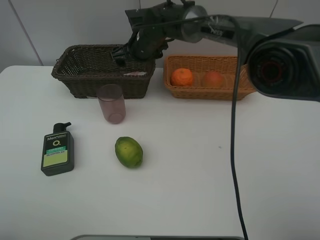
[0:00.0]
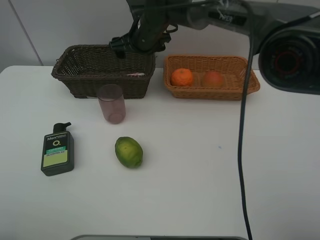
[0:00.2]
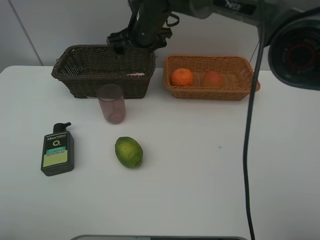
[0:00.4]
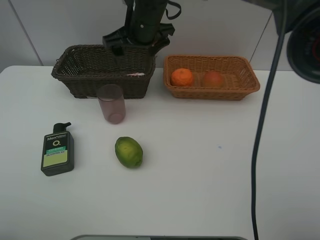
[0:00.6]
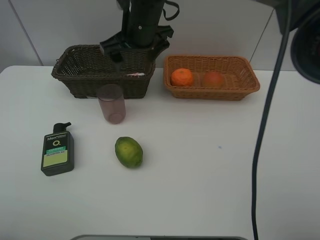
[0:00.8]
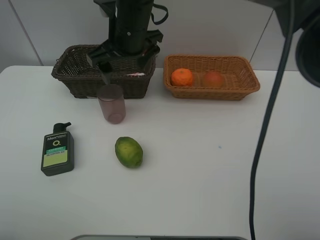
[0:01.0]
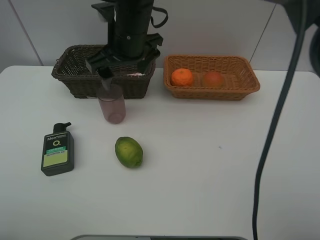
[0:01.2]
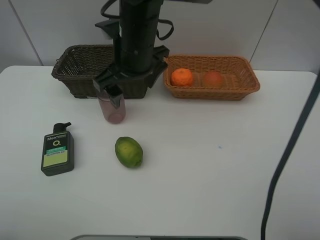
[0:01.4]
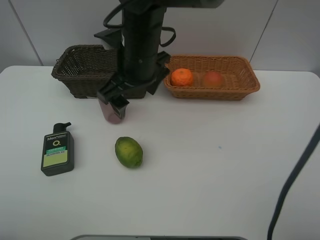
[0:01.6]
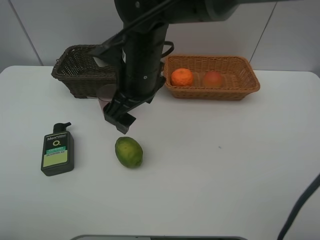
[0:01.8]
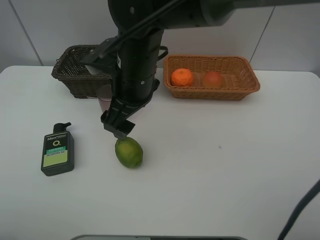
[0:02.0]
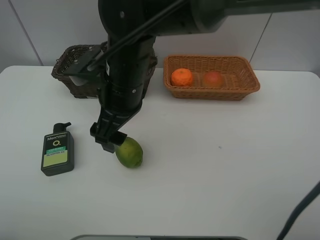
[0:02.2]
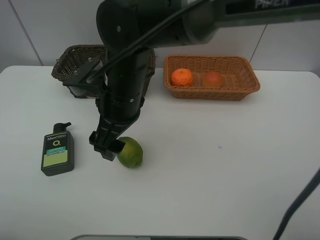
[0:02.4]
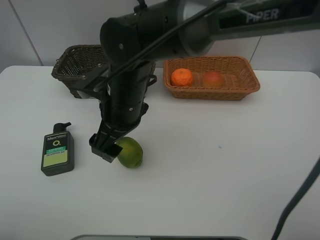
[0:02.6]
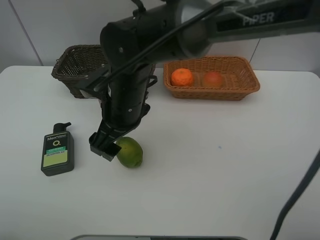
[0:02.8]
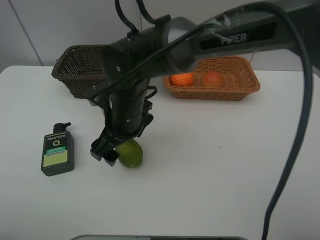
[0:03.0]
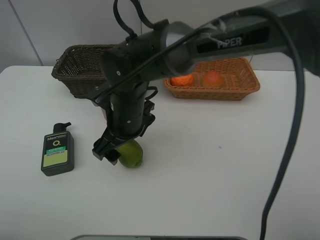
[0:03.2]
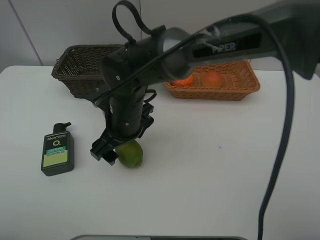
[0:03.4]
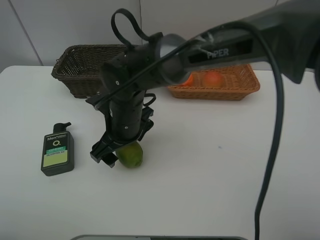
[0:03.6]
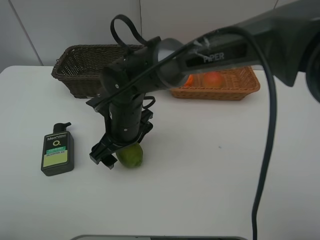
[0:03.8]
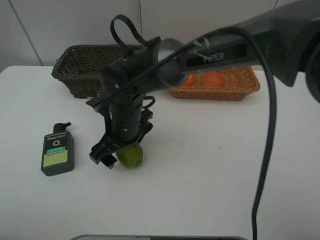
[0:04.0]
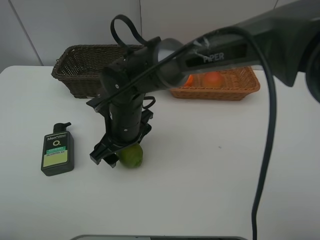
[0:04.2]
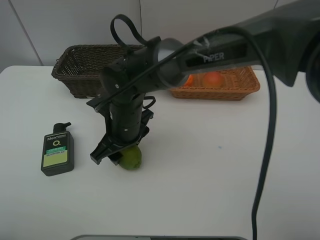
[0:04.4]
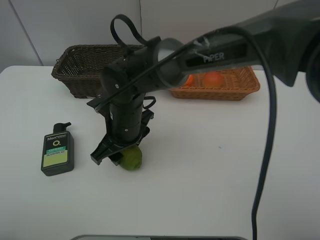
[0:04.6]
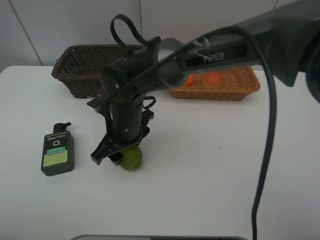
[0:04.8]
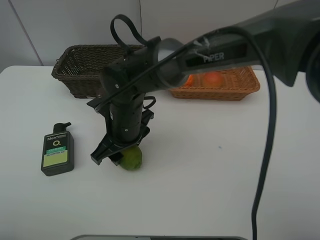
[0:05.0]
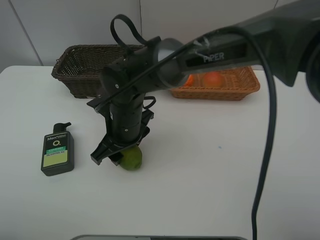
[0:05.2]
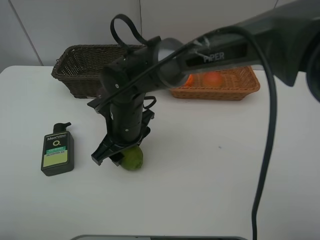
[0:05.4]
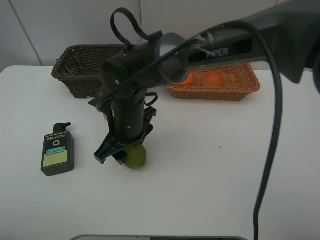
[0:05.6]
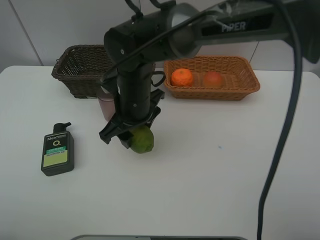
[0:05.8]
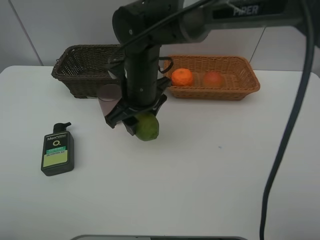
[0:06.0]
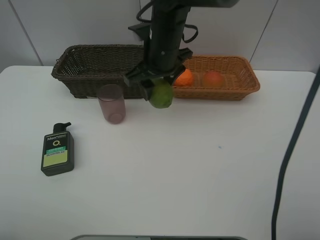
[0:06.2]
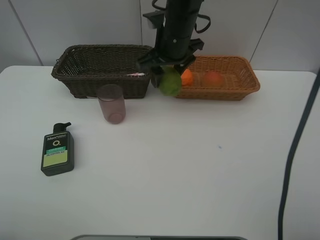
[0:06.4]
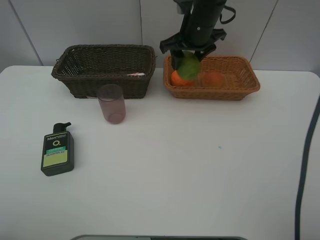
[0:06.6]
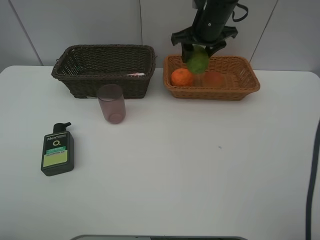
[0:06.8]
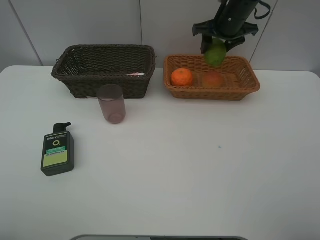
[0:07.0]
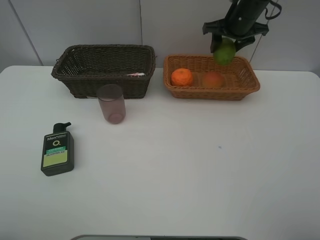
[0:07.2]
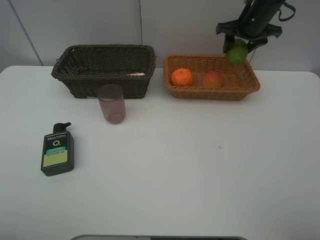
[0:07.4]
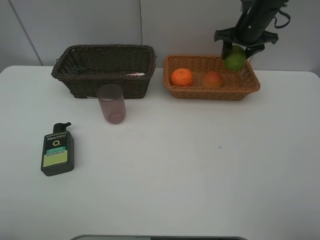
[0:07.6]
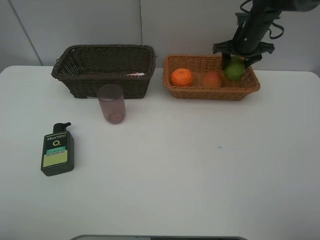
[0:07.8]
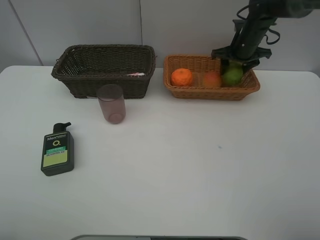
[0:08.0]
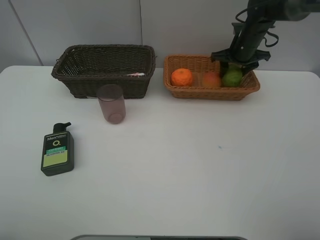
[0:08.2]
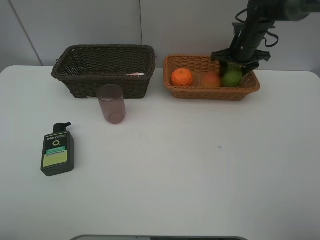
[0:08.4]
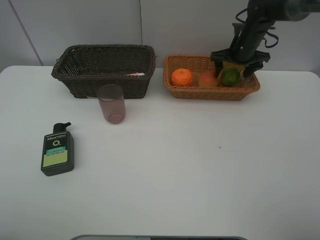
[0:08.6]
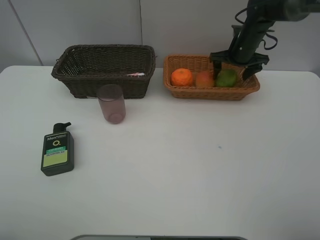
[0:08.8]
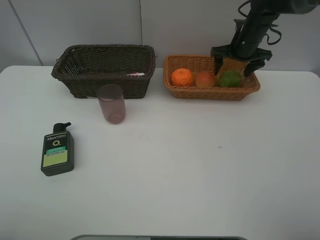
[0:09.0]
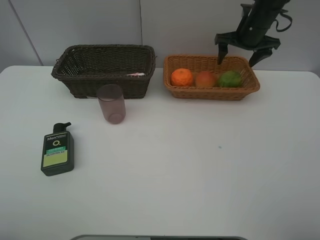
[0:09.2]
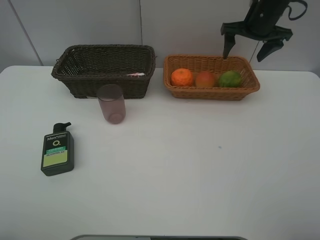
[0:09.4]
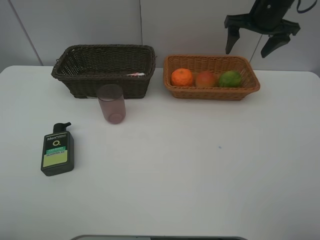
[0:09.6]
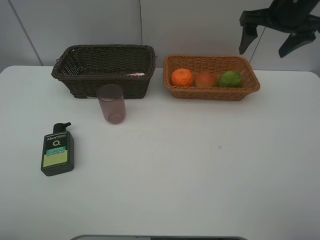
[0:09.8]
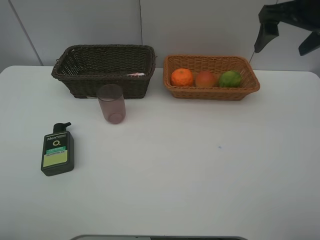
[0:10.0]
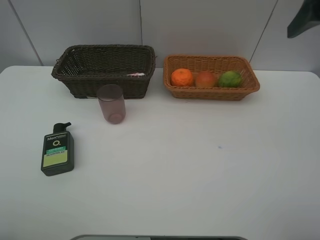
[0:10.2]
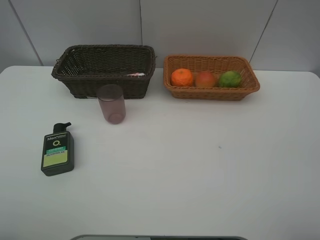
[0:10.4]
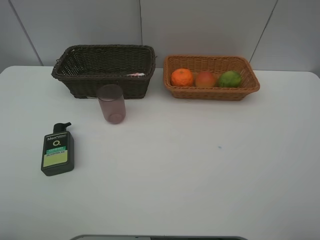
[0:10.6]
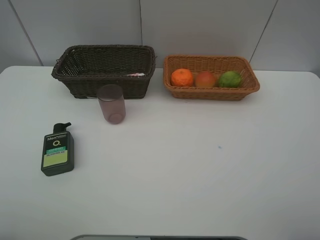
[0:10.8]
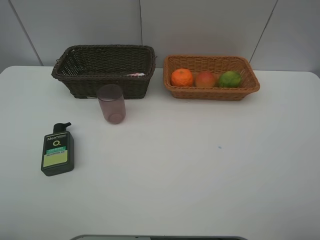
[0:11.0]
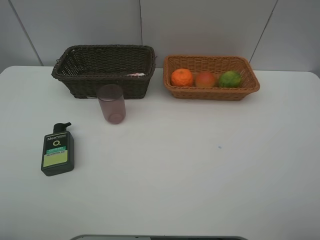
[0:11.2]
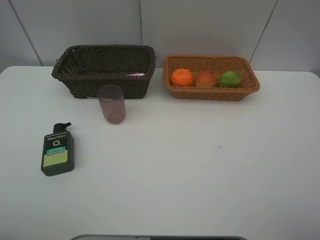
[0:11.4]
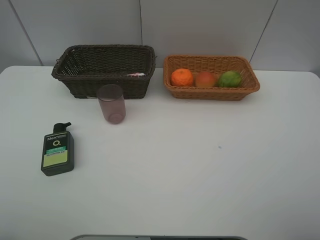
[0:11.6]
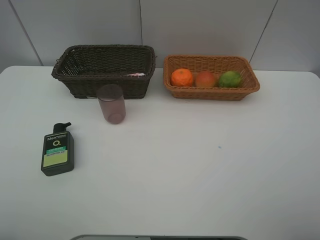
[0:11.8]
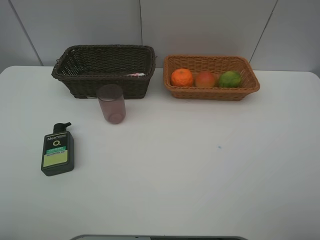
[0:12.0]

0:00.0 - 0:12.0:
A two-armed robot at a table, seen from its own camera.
Task of the whole recording: place multiple objects separately in different baskets.
0:00.0 - 0:01.6: The right gripper shifts approximately 15 cm backward.
0:01.6 - 0:03.0: The right gripper is displaced downward by about 10 cm.
0:03.0 - 0:04.4: The right gripper closes up.
0:04.4 - 0:06.0: The right gripper heads upward, covering about 5 cm.
0:06.0 - 0:07.6: The right gripper is displaced to the right and forward by roughly 30 cm.
0:07.6 - 0:09.0: The right gripper opens its fingers.
0:09.0 - 0:10.4: The right gripper travels backward and upward by some 35 cm.

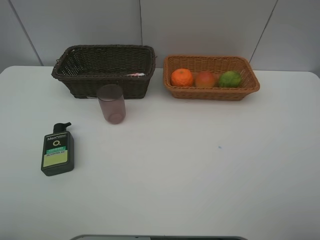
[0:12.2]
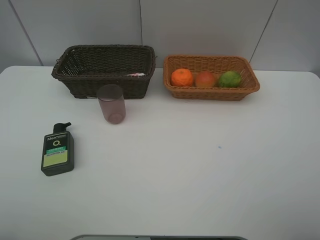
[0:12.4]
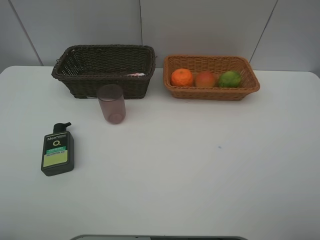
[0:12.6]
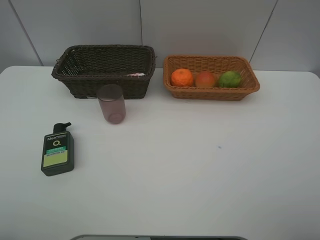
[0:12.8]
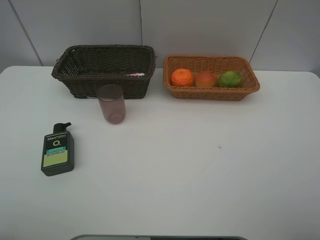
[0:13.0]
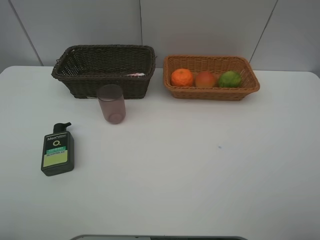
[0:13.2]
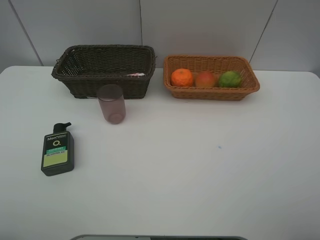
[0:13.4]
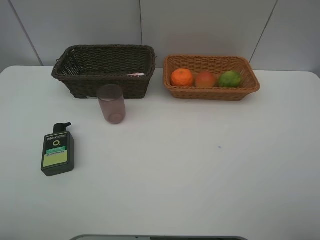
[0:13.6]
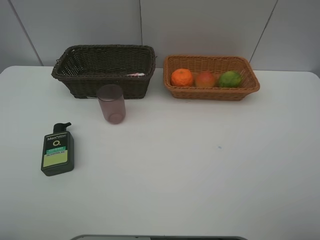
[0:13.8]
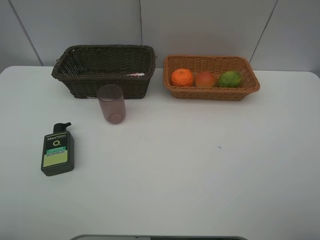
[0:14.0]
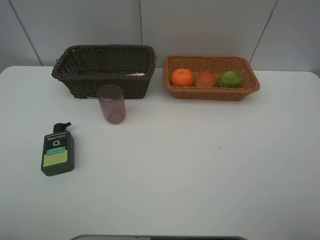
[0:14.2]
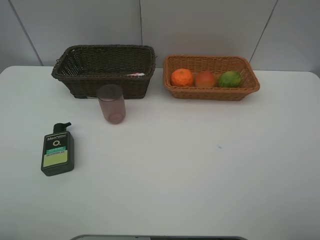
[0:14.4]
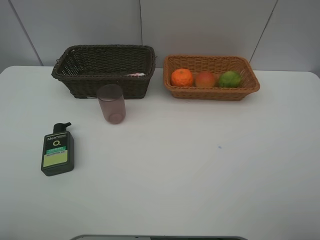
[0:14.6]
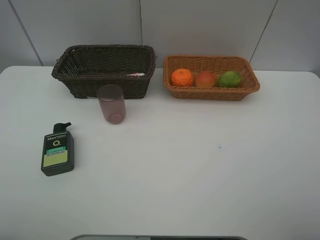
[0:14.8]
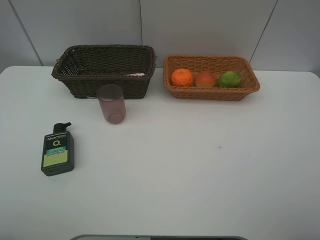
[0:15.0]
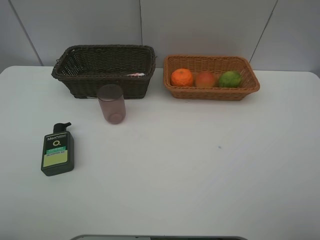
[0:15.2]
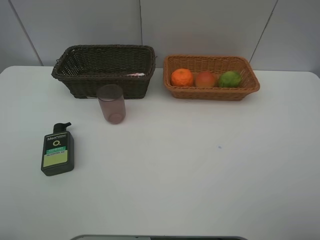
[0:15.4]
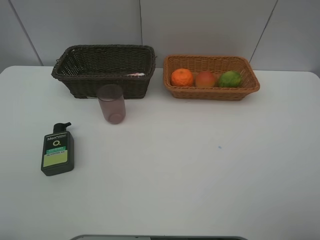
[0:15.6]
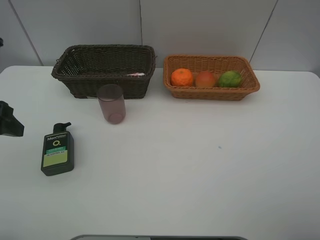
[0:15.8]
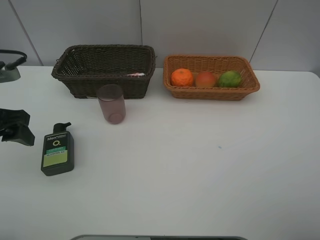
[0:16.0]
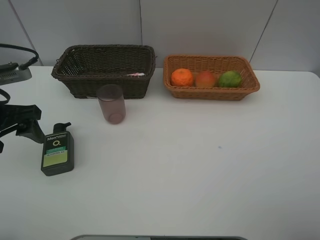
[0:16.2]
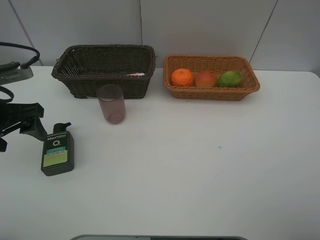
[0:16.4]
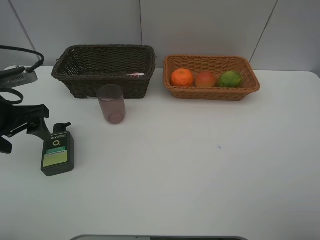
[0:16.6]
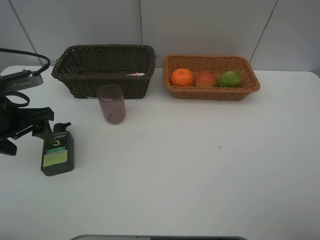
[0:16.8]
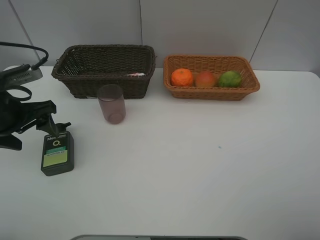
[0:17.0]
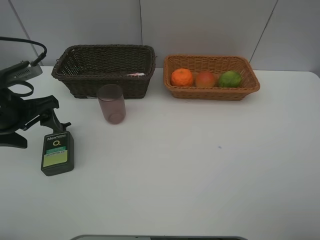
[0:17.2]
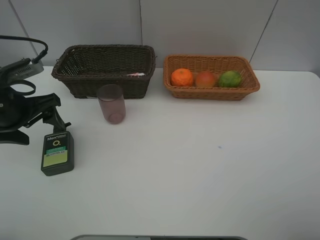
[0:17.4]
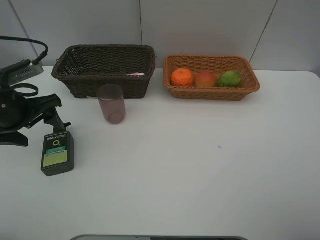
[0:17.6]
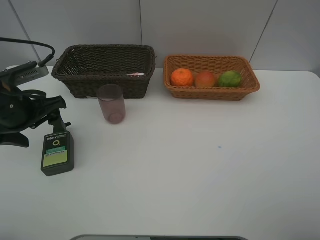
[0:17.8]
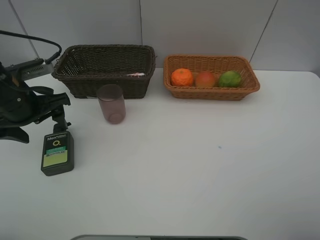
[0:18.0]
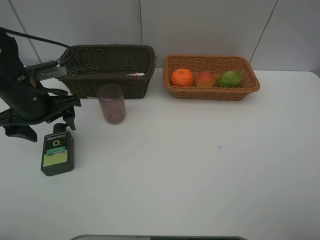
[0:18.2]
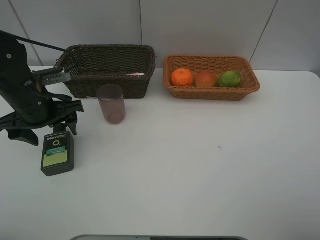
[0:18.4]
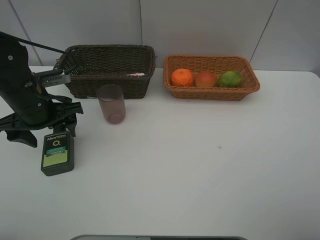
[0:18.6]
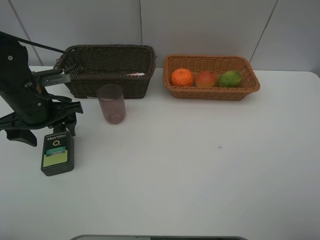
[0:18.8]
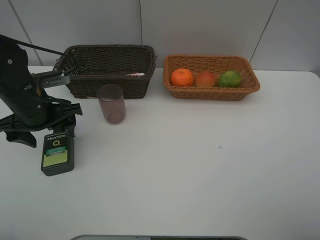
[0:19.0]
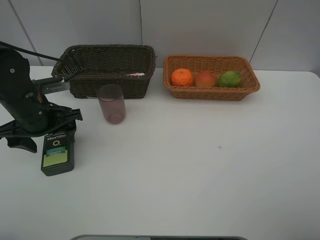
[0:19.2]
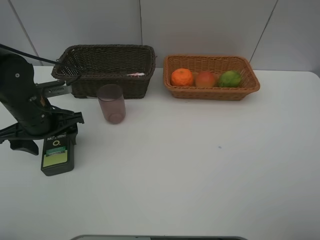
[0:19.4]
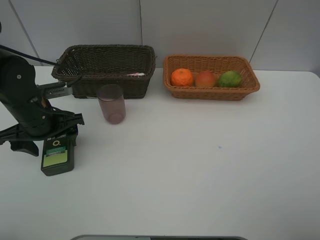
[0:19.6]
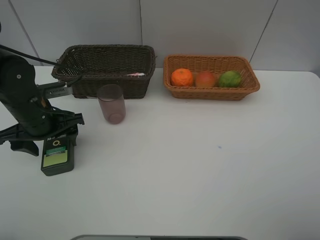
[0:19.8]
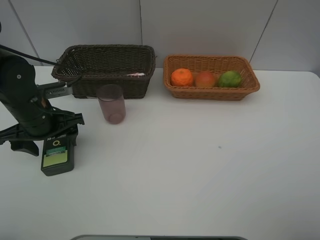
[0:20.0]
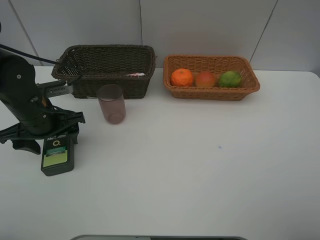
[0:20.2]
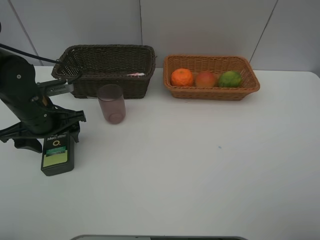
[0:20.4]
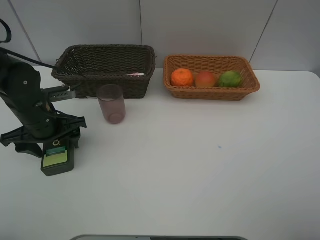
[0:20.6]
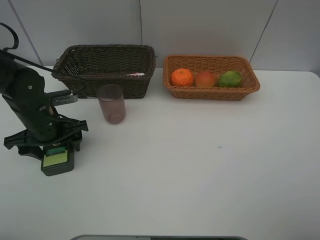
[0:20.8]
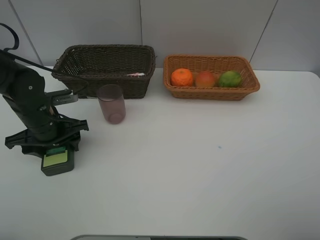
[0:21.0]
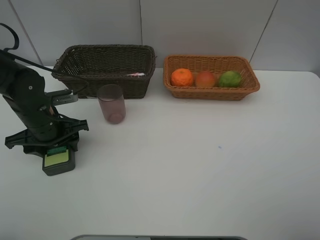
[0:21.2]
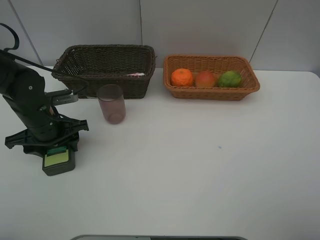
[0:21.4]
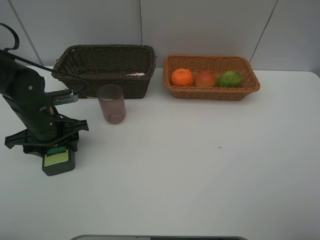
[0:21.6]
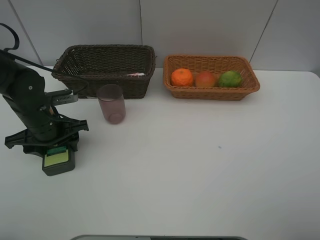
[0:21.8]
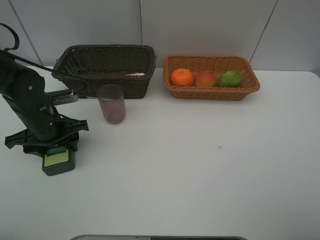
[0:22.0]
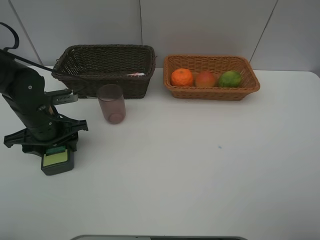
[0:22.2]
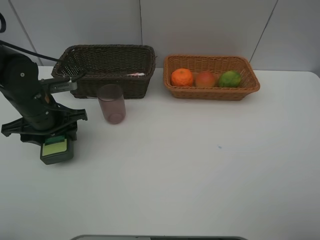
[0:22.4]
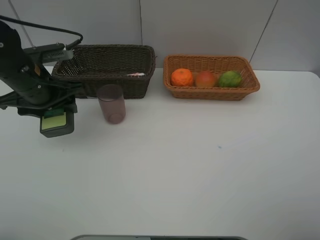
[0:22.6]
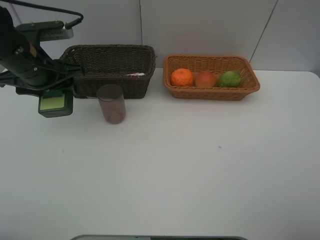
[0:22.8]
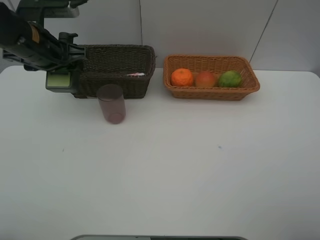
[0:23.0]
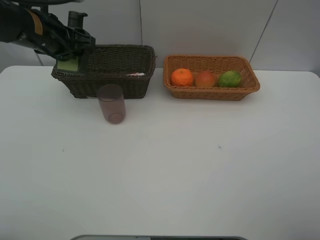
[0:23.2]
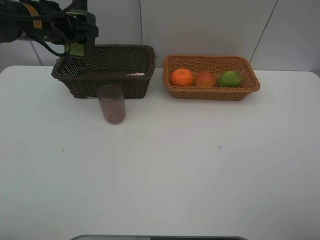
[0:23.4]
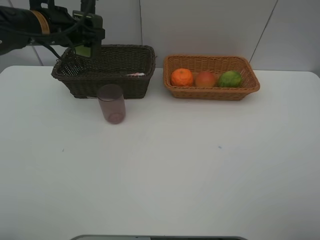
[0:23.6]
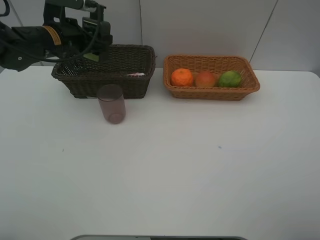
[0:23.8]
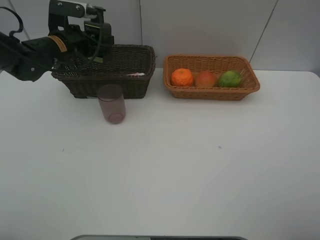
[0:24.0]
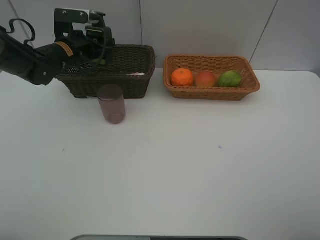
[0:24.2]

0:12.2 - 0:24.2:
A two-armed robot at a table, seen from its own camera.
Task of the whole recording: place multiple objects separately in different baskets.
0:12.2 - 0:13.8: Both grippers stay about where they are.
0:15.2 - 0:16.6: The left gripper moves forward and downward, approximately 25 cm.
0:16.6 - 0:18.2: The left gripper goes some 5 cm to the right.
0:18.2 - 0:21.2: There are only small adjustments of the grippers.
0:21.2 - 0:22.6: The left gripper travels upward by about 10 cm.
0:22.6 - 0:24.2: The left gripper is displaced forward by approximately 10 cm.
